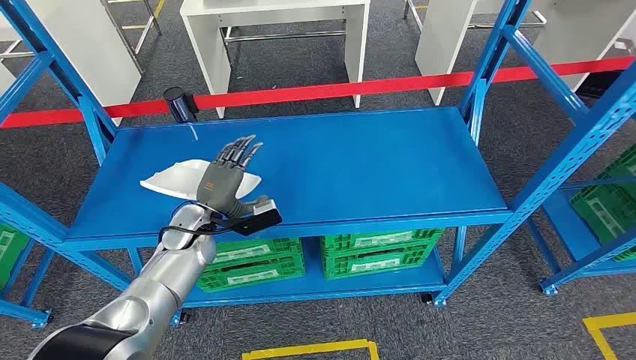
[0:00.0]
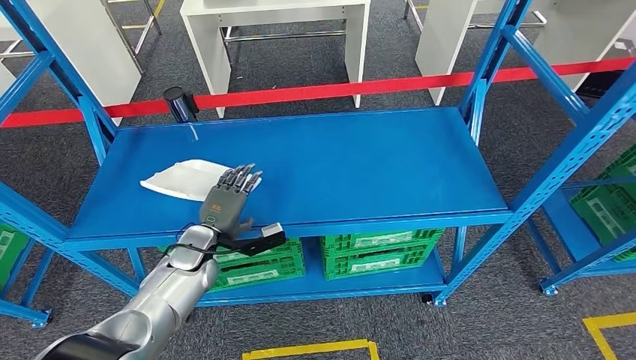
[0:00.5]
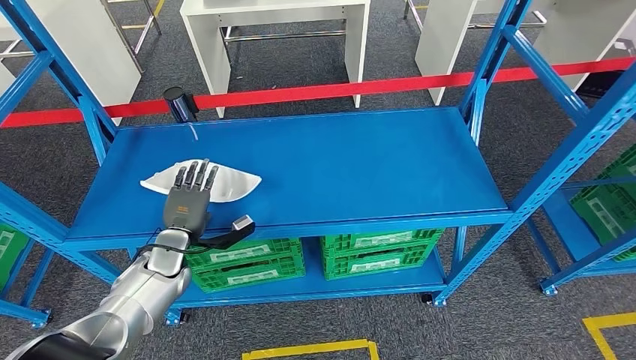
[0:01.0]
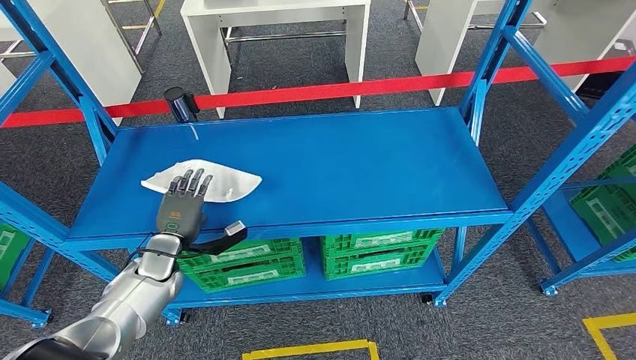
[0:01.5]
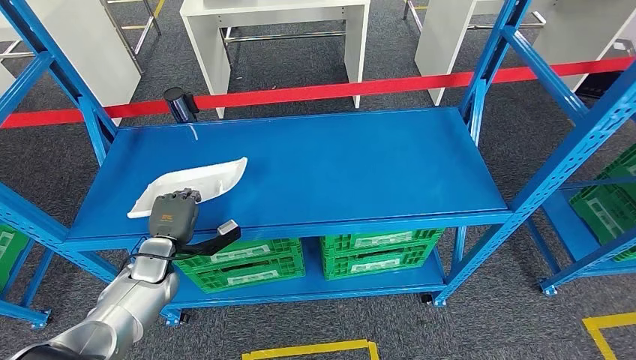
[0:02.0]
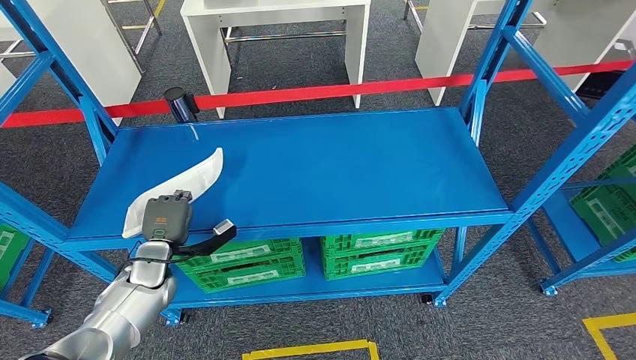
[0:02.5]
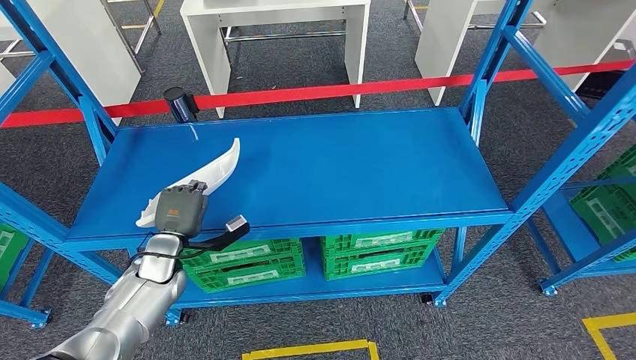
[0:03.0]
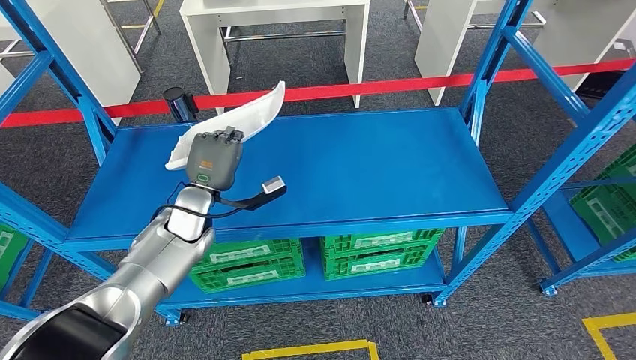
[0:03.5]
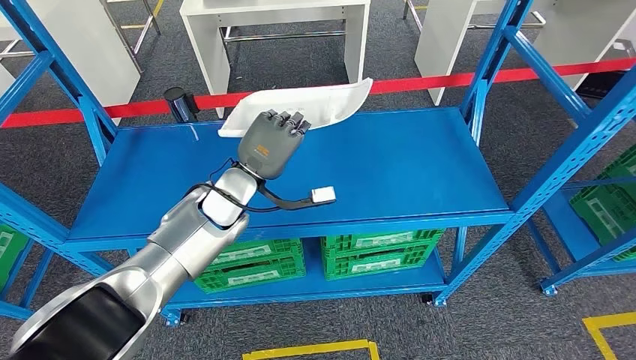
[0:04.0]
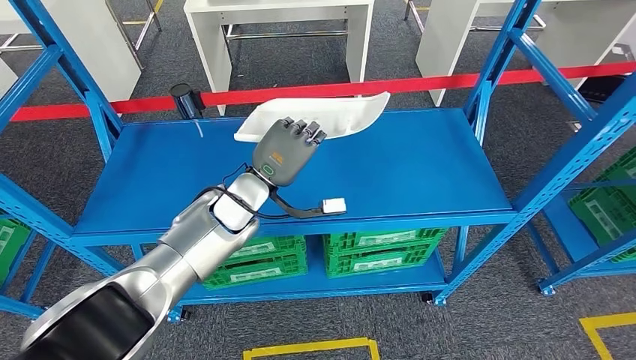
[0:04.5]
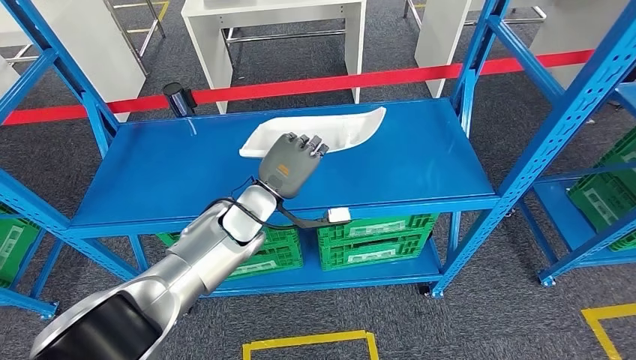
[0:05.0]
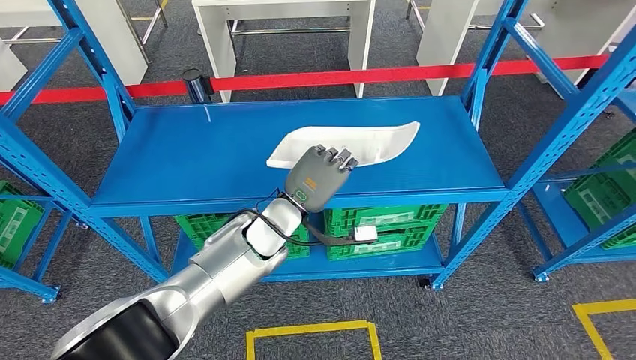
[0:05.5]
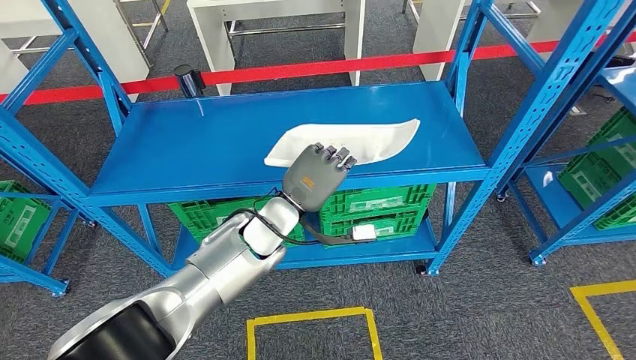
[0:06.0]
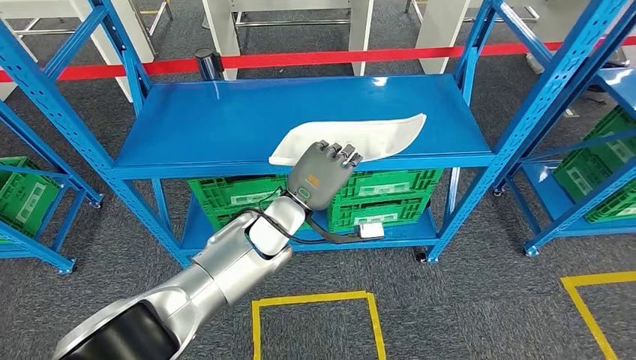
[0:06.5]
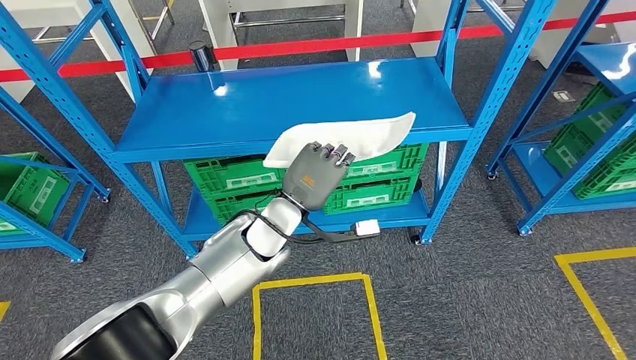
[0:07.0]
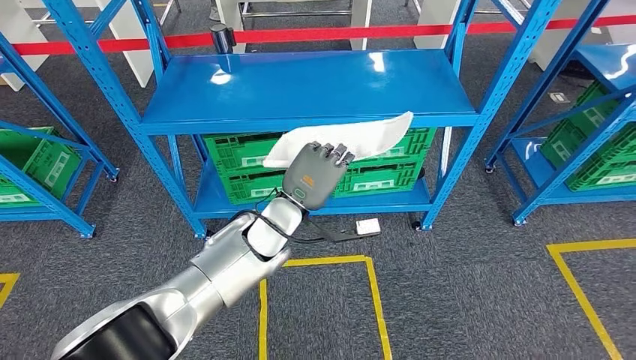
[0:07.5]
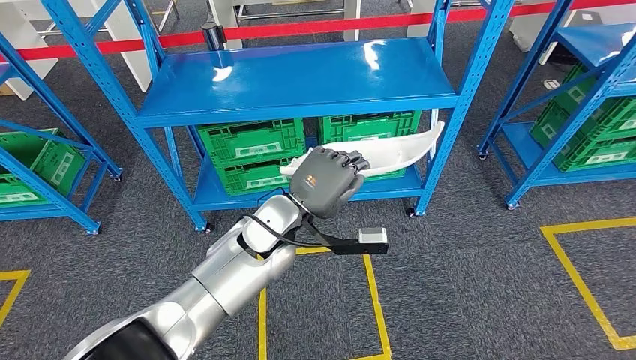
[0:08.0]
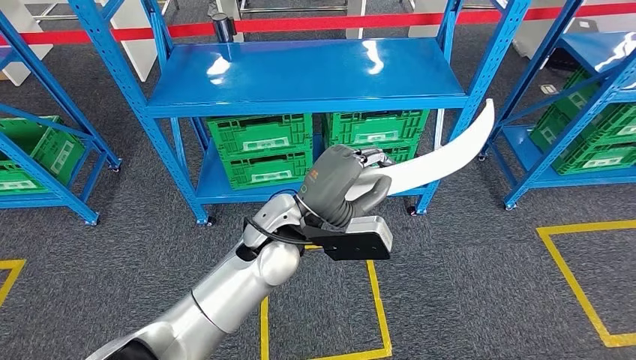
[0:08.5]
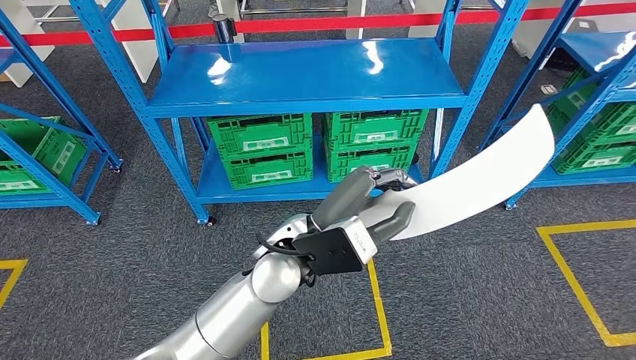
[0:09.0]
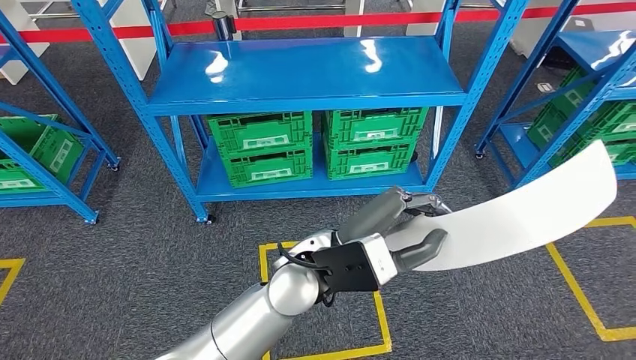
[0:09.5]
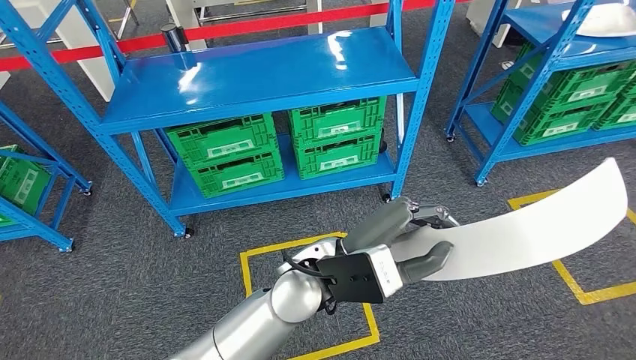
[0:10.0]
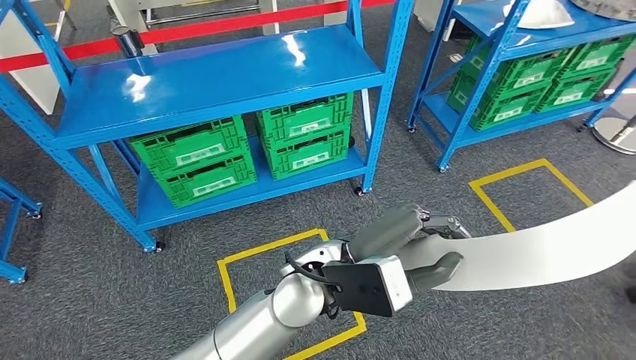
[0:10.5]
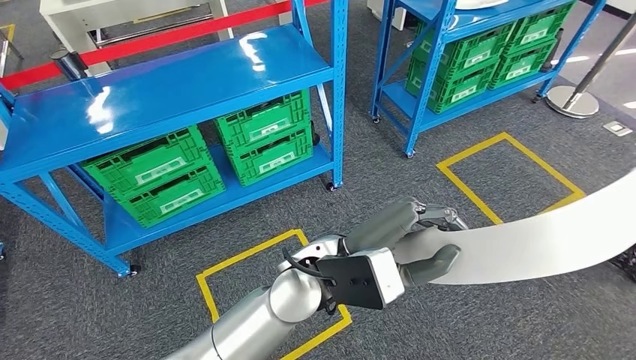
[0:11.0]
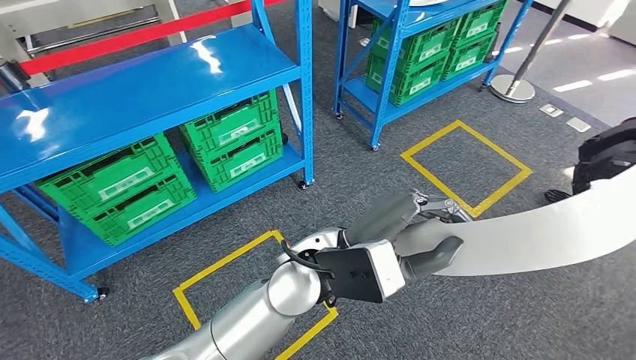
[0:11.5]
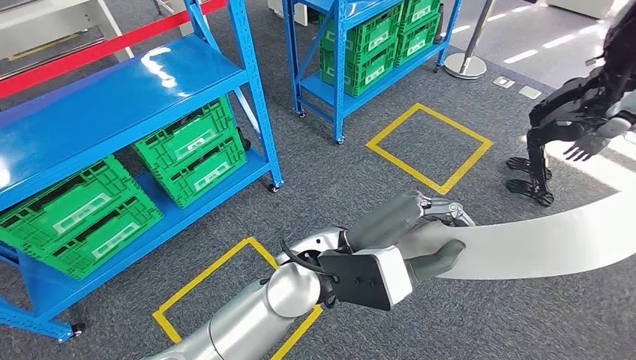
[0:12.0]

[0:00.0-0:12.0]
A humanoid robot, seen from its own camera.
Step, 0:00.0 to 0:05.0: Pick up the small component from the shelf.
0:02.0 to 0:04.0: The left hand heads to the right and upward, covering approximately 25 cm.

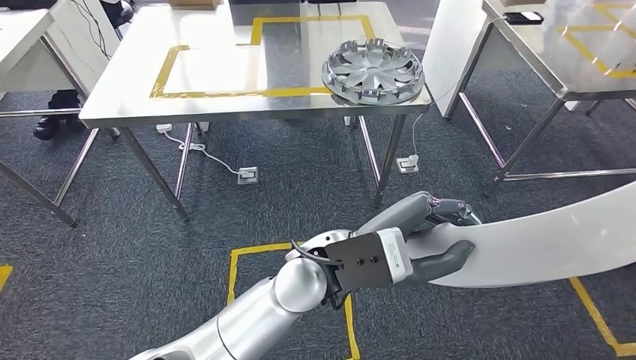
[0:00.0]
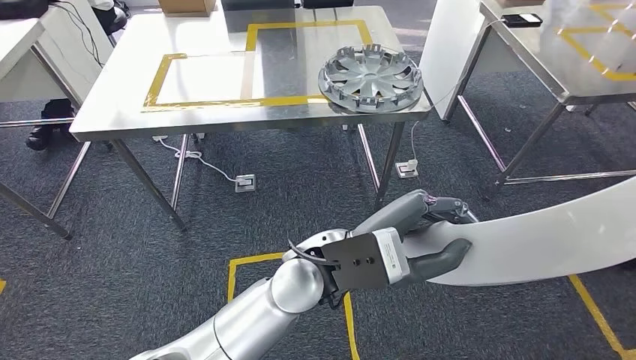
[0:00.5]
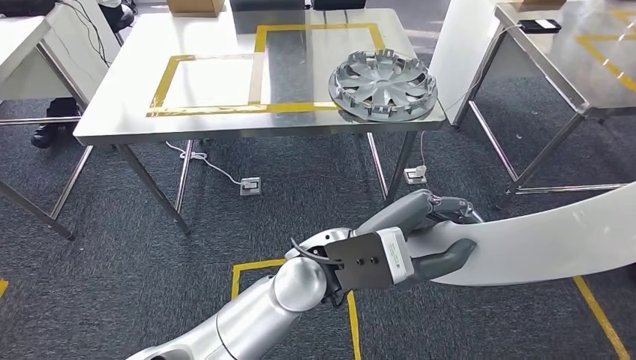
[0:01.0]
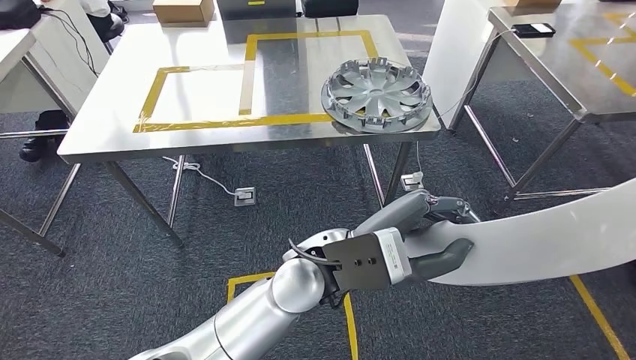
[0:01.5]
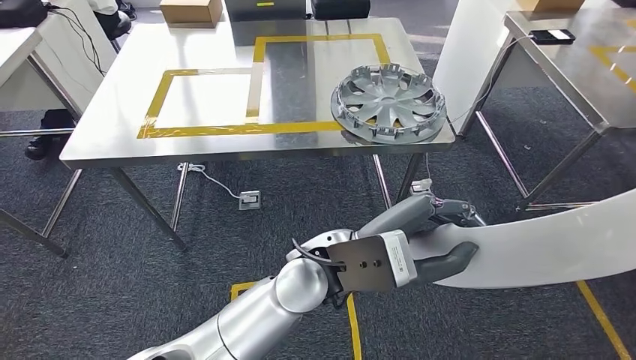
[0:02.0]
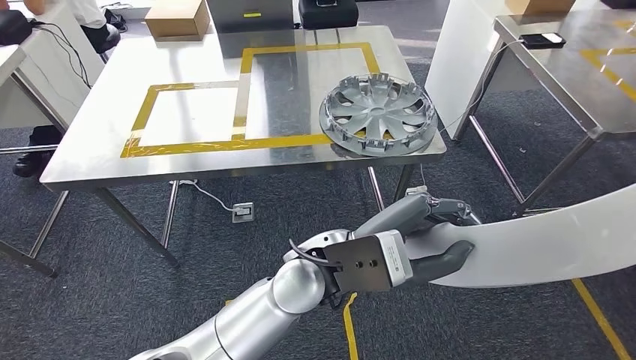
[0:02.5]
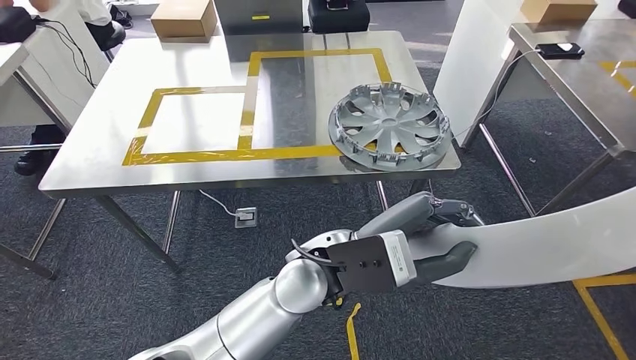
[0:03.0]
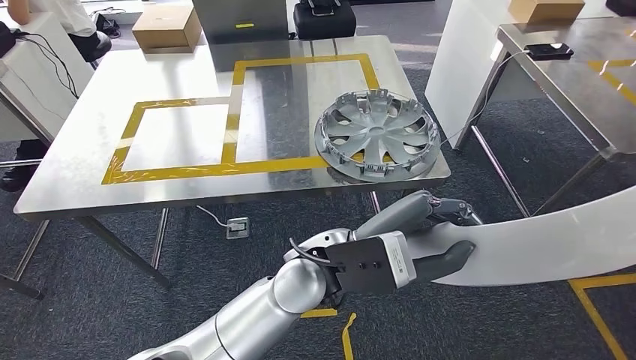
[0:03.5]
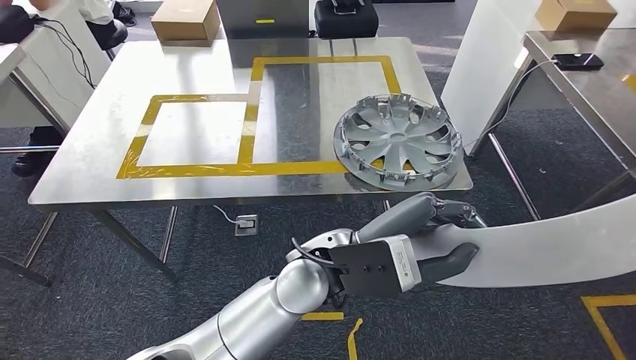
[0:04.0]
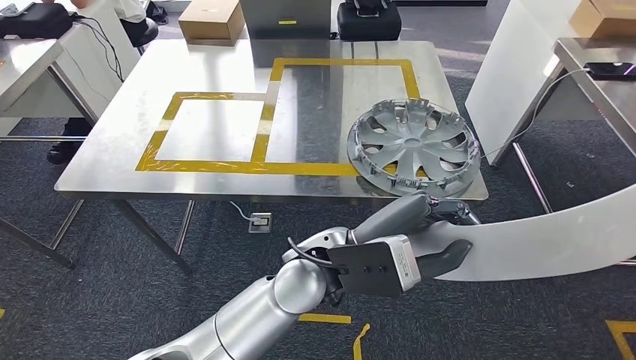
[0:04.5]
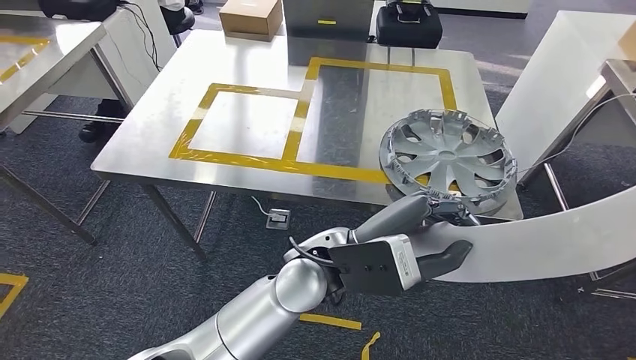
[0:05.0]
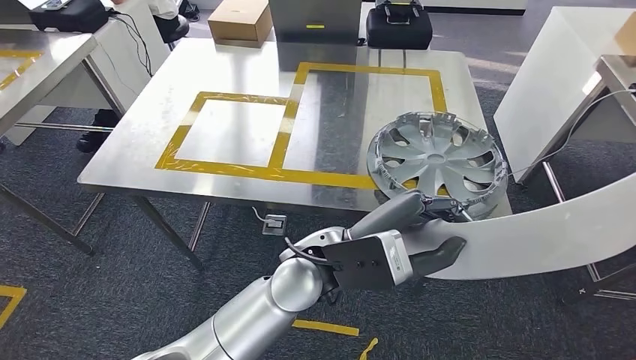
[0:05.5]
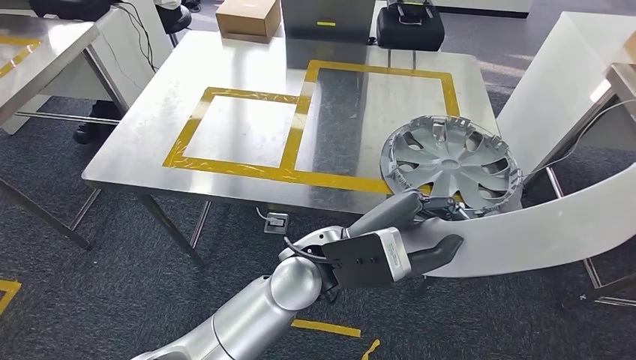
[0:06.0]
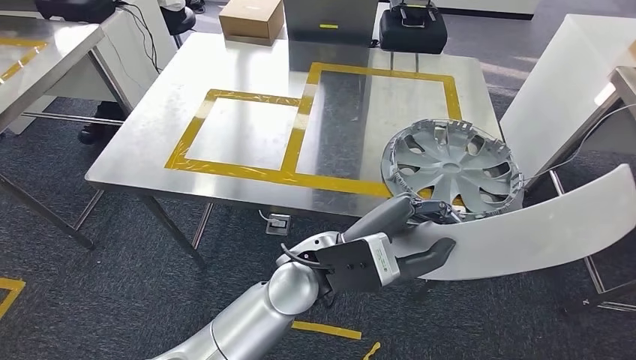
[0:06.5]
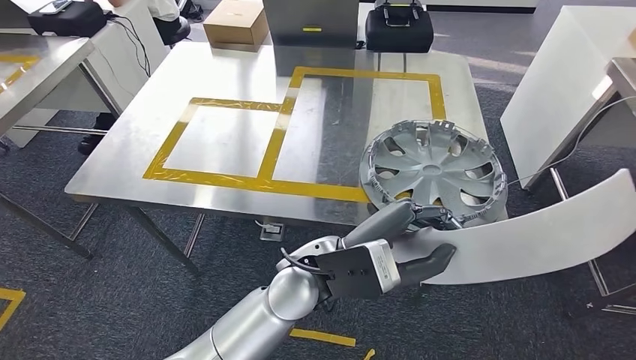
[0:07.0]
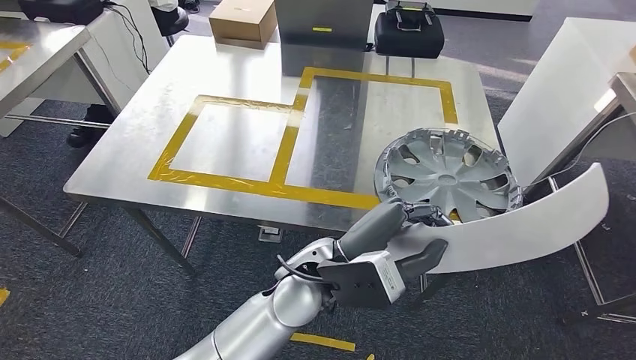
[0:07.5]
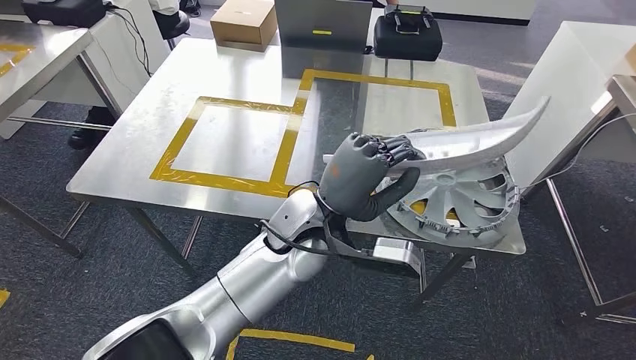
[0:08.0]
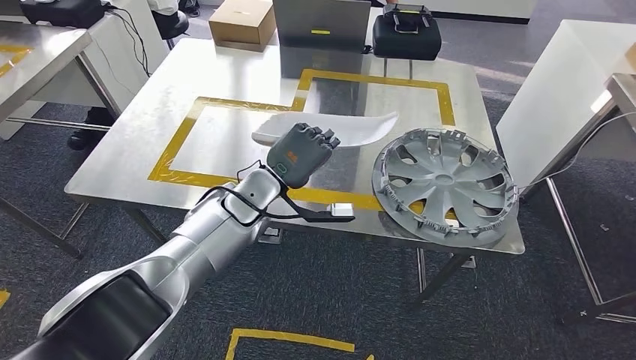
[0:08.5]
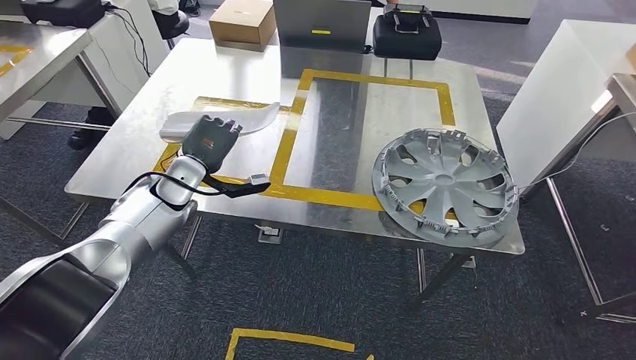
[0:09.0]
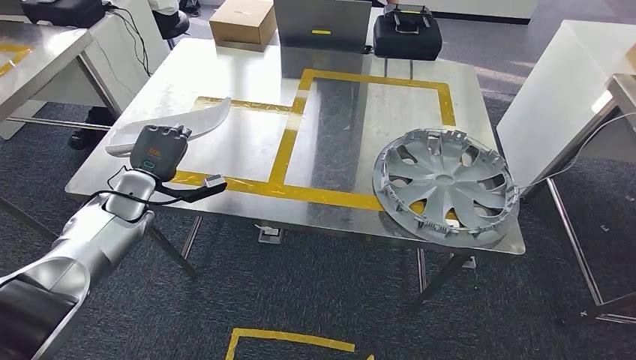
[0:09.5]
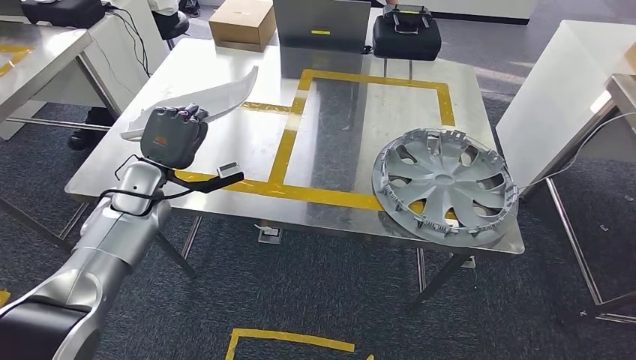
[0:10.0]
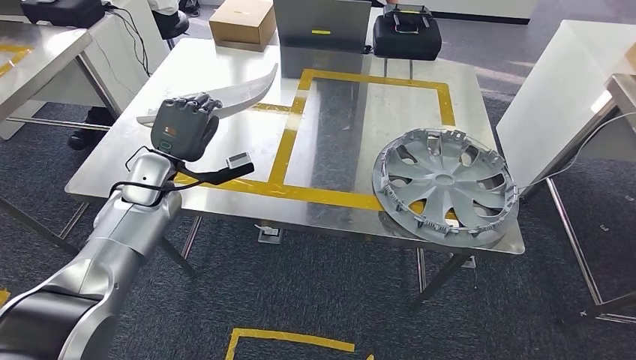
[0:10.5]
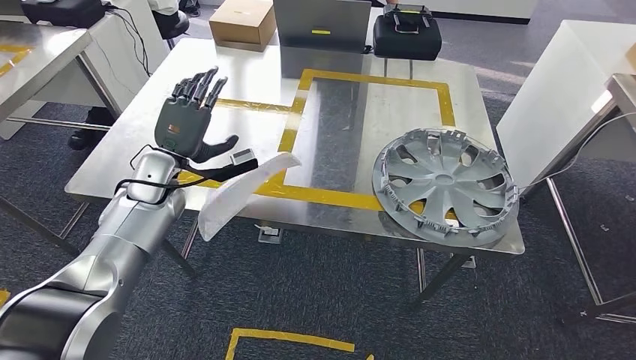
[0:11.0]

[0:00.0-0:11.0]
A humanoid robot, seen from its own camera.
Step, 0:00.0 to 0:07.0: Move the small component to the workbench.
Step, 0:08.0 to 0:10.5: Insert the small component into the corresponding slot on the workbench.
0:09.0 to 0:11.0: The left hand travels to the left and back again, about 10 cm each way.
